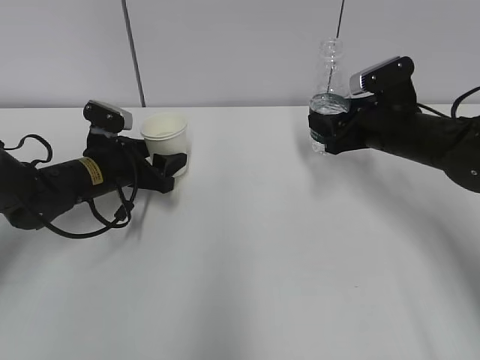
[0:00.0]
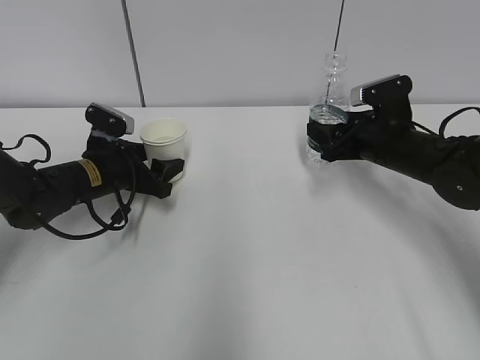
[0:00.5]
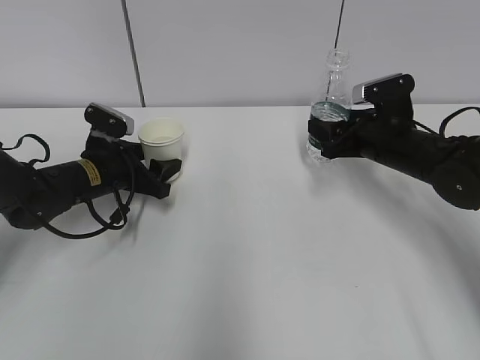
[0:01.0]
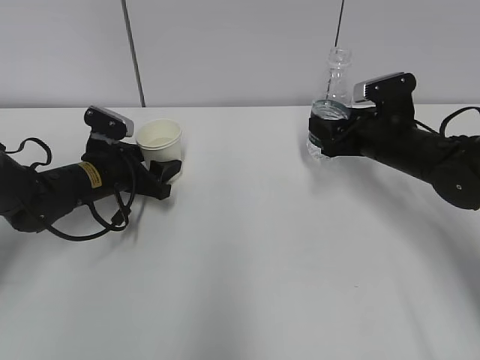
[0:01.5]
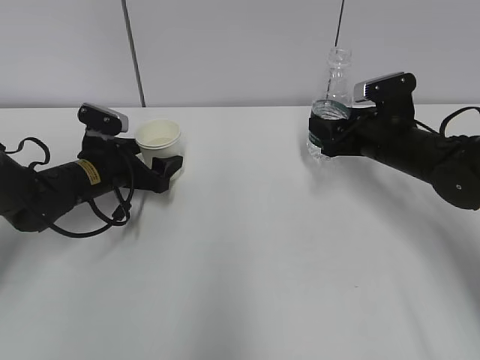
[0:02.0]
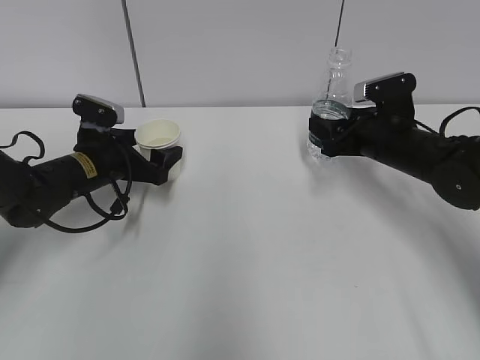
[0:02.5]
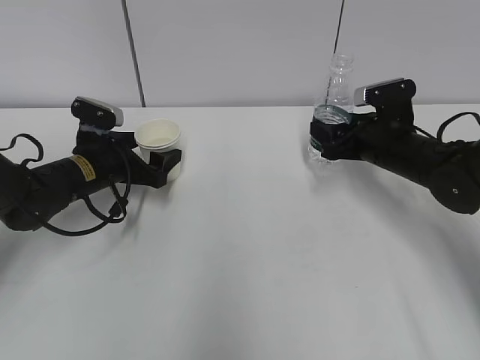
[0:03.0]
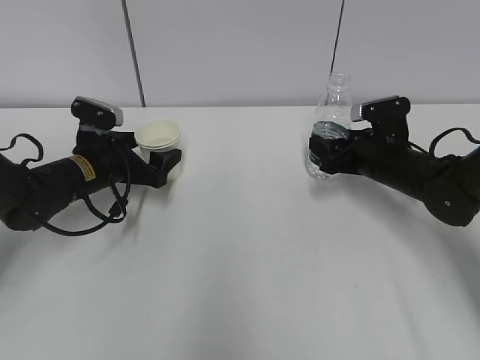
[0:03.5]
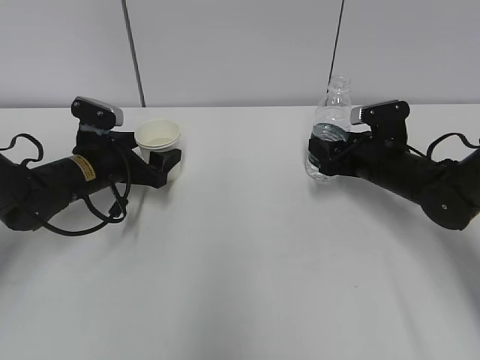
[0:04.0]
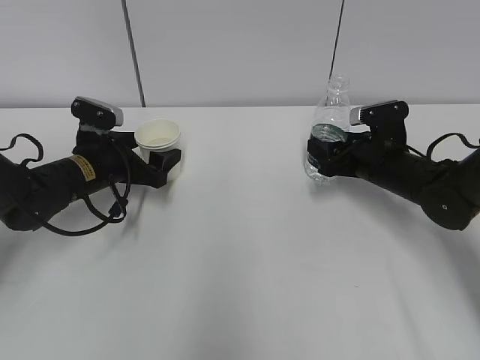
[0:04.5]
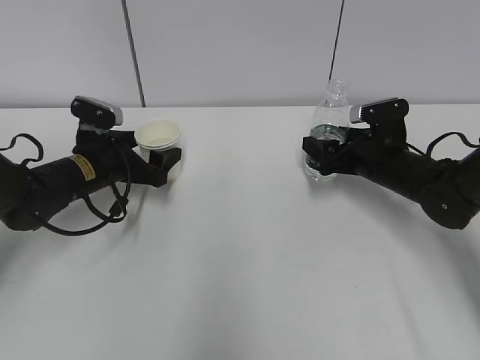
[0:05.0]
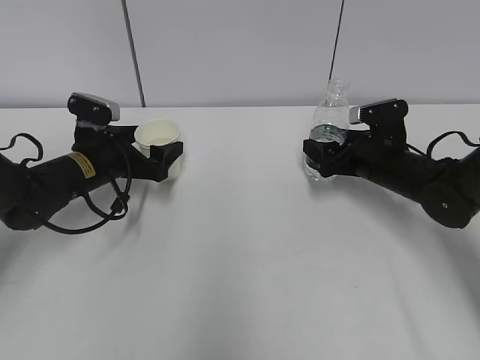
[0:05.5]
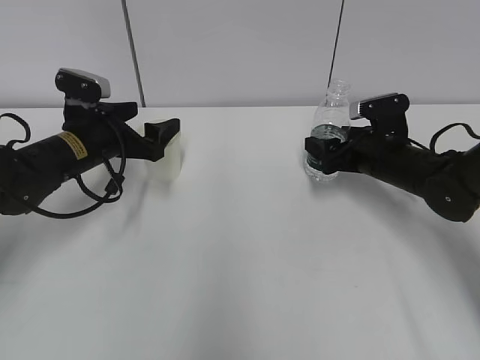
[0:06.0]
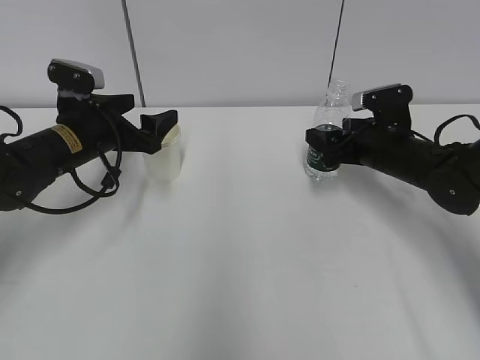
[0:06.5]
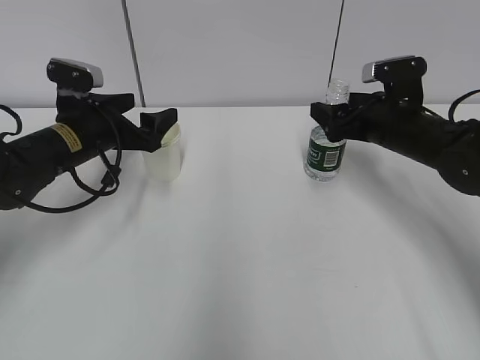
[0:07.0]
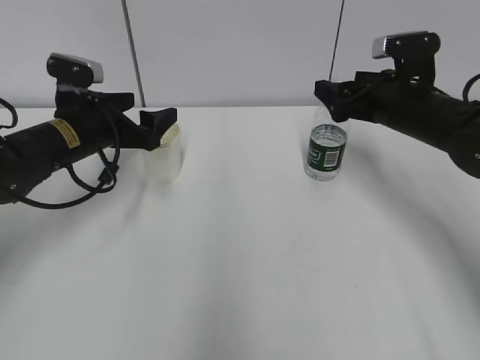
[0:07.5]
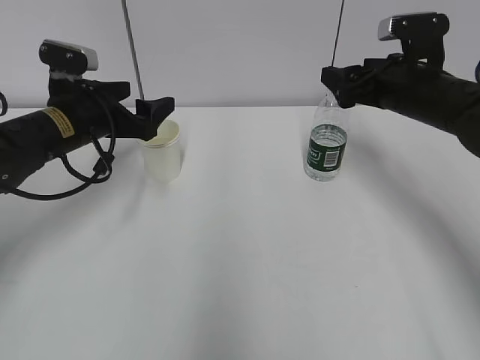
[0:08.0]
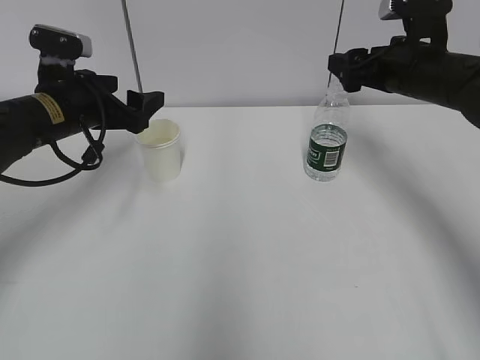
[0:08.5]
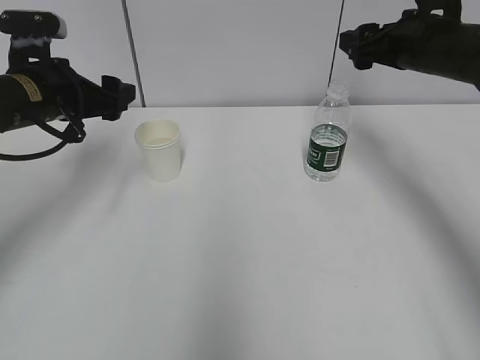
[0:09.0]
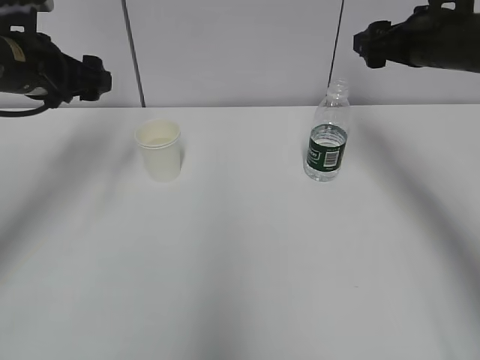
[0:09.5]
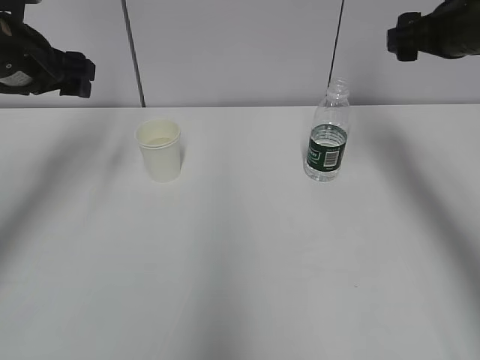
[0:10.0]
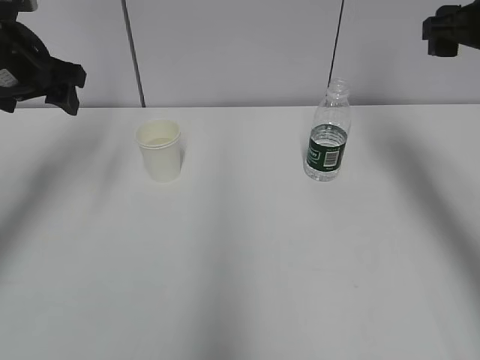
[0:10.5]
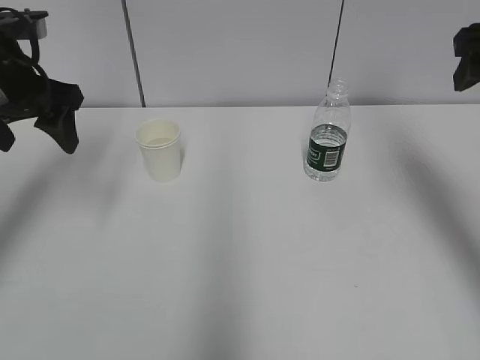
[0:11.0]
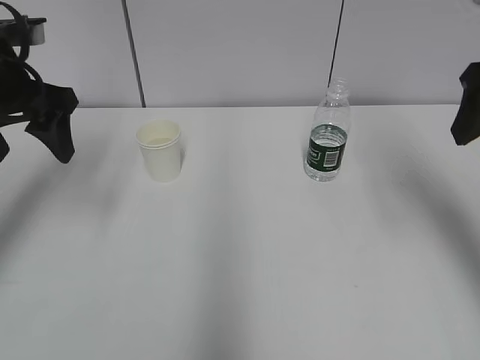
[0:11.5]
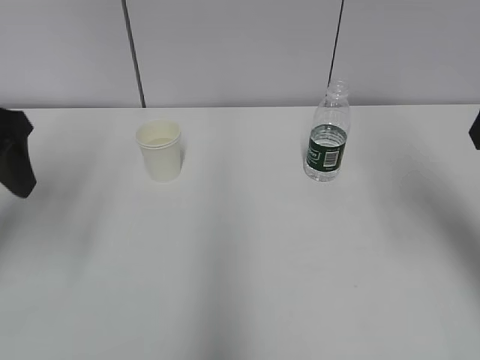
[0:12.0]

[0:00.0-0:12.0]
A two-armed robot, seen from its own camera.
0:00.0 to 0:02.0: The left gripper opens.
0:02.0 to 0:04.0: The grippers stay close to where they were, moving slightly.
0:04.0 to 0:06.0: The right gripper opens up.
0:06.0 to 0:08.0: The right gripper moves upward, about 10 cm.
0:08.0 to 0:10.0: The right gripper goes some 10 cm upward, while the left gripper moves upward and to the left, about 10 cm.
0:10.0 to 0:12.0: The grippers both shift backward by roughly 15 cm.

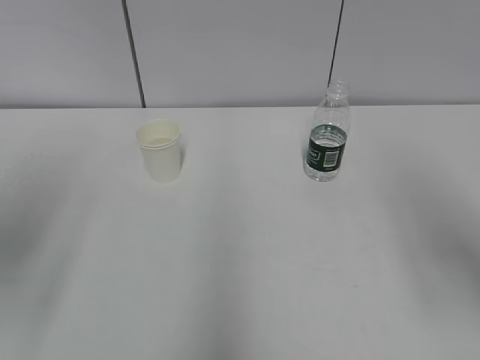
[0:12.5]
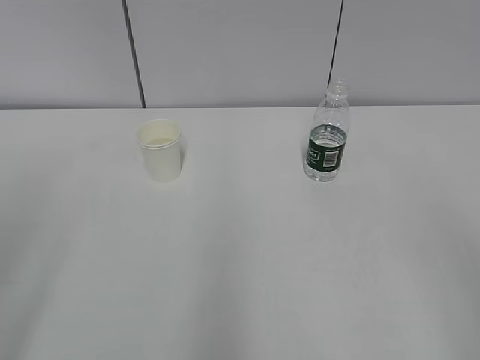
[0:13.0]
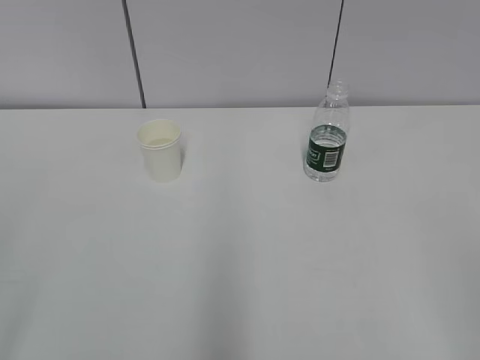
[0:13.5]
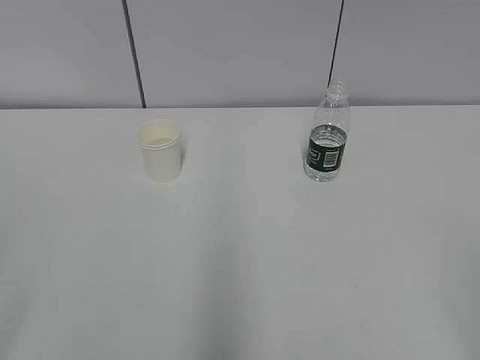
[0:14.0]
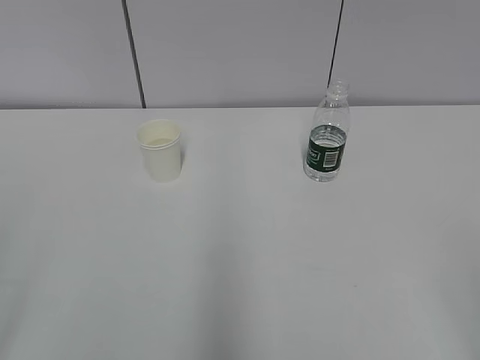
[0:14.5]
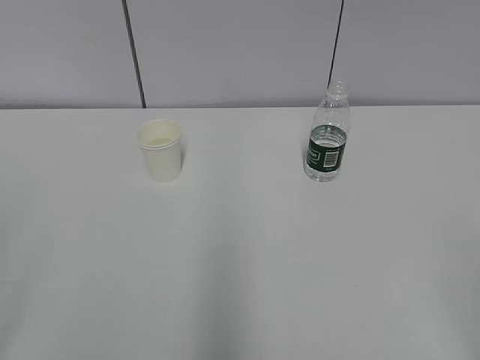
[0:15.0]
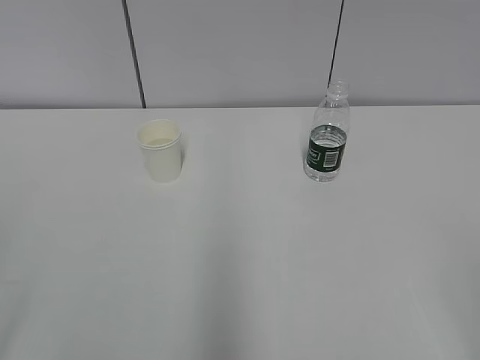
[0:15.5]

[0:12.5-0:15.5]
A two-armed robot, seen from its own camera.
0:12.5 to 0:14.0: The left gripper travels backward by about 20 cm. The right gripper shifts some 20 cm backward and downward.
0:14.0 to 0:15.5: Neither gripper changes place.

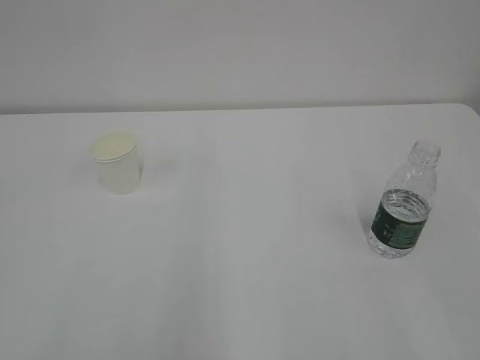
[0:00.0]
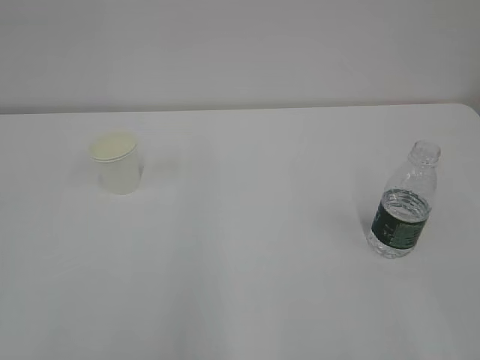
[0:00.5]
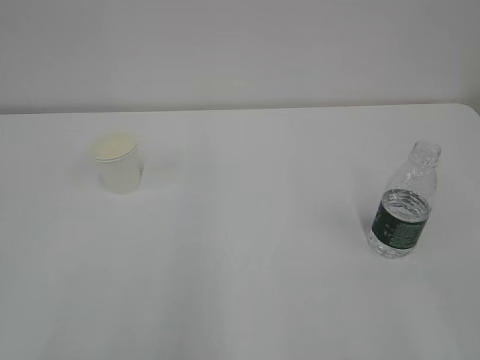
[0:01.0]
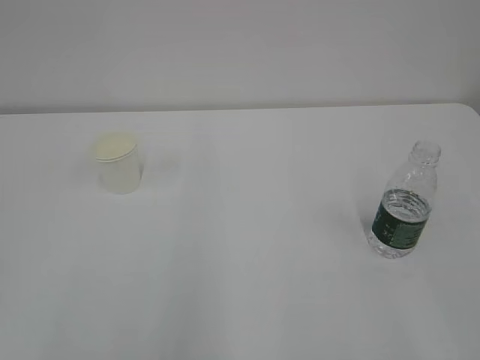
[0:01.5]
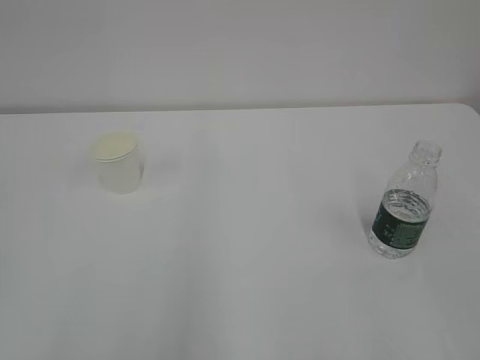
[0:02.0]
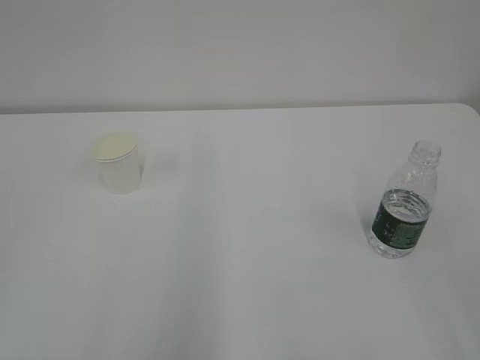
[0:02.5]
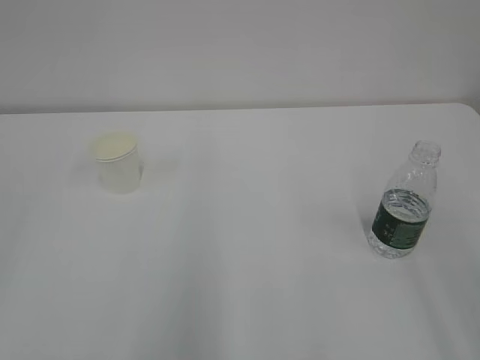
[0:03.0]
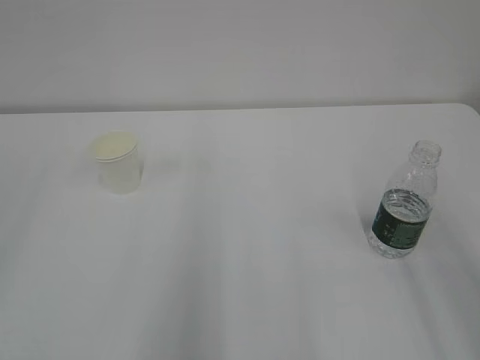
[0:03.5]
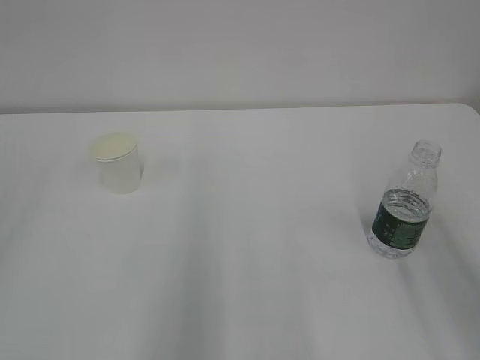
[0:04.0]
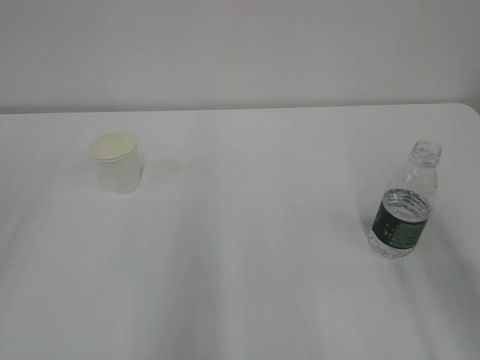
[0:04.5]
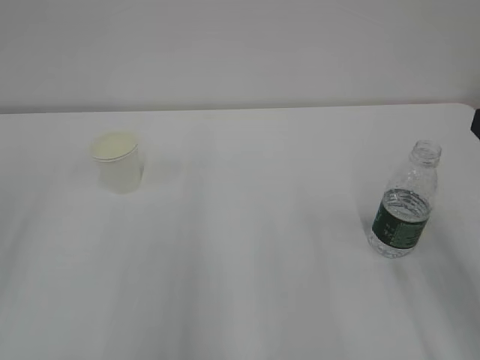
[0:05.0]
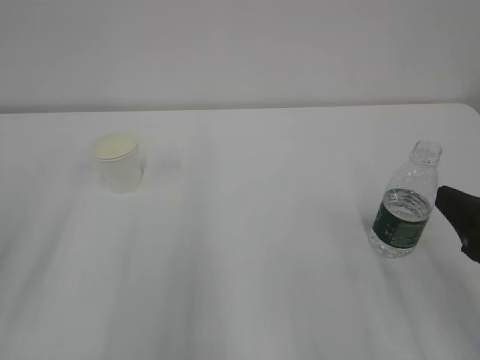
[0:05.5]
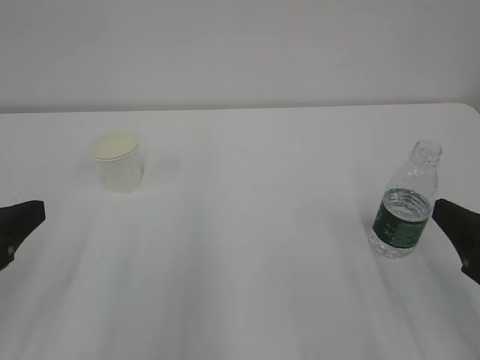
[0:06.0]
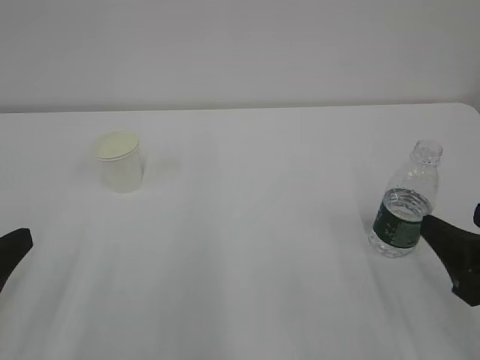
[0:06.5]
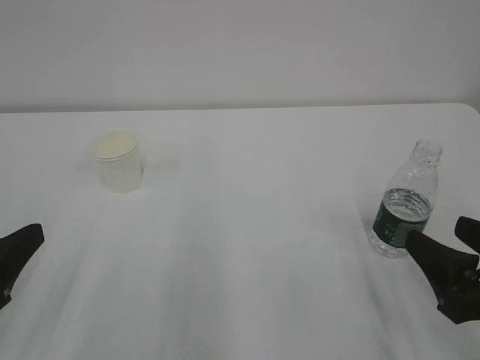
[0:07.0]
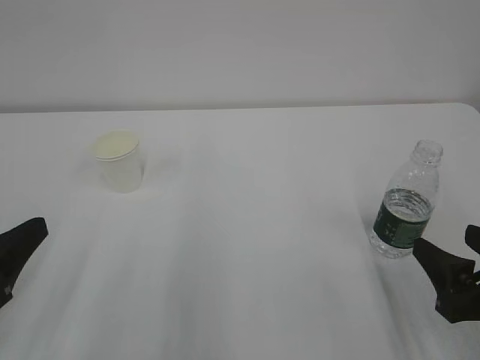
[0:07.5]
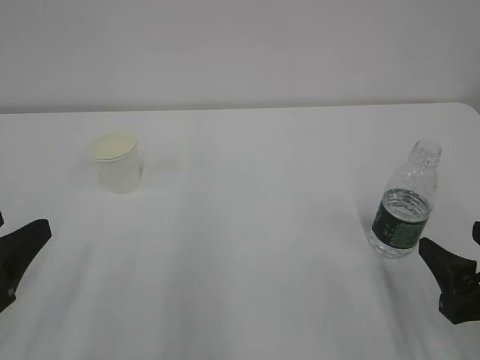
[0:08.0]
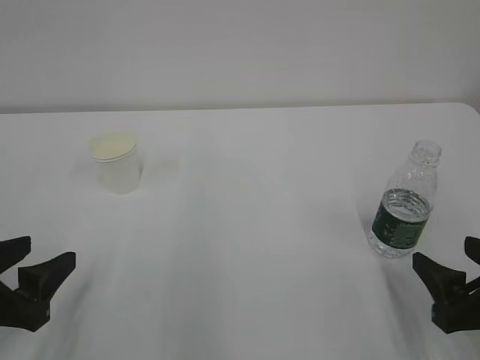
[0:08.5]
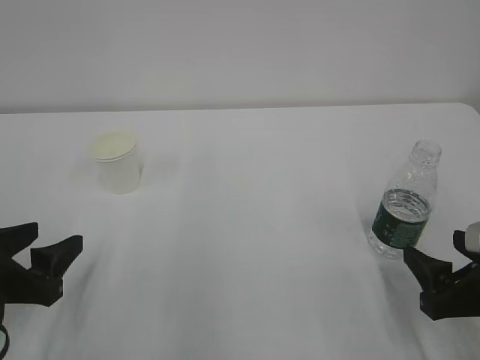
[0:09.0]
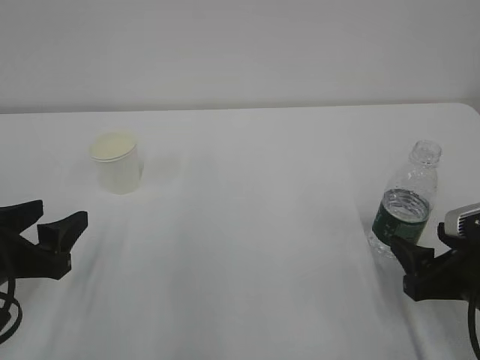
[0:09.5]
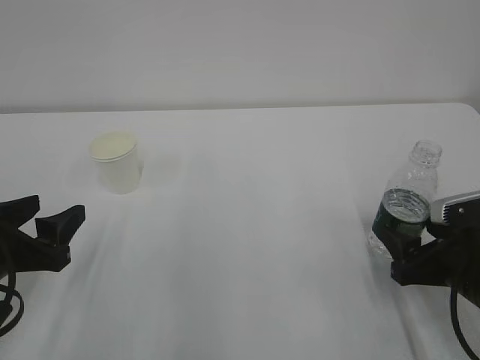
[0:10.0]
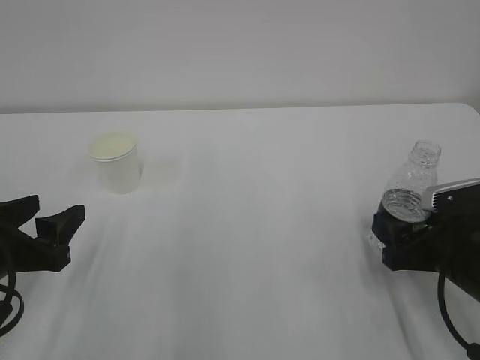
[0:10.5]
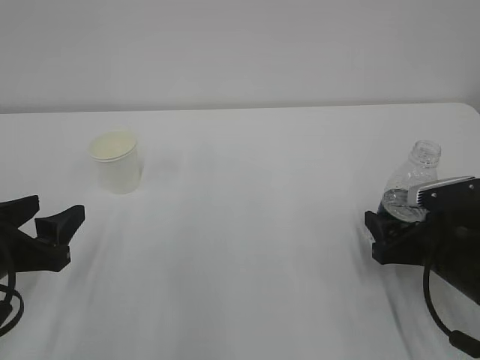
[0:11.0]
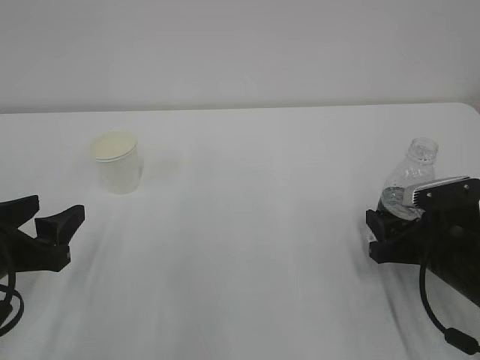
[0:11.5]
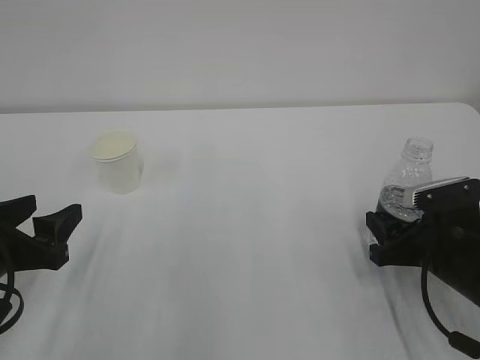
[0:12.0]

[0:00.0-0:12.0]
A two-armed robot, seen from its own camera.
0:04.0 to 0:06.0: The left gripper heads downward and to the right, covering some 15 cm, while the right gripper moves downward, some 15 cm.
0:06.0 to 0:08.0: The right gripper heads downward, covering roughly 5 cm.
0:08.0 to 0:10.0: The grippers both shift forward by some 5 cm.
0:10.0 to 0:12.0: The right gripper closes up.
